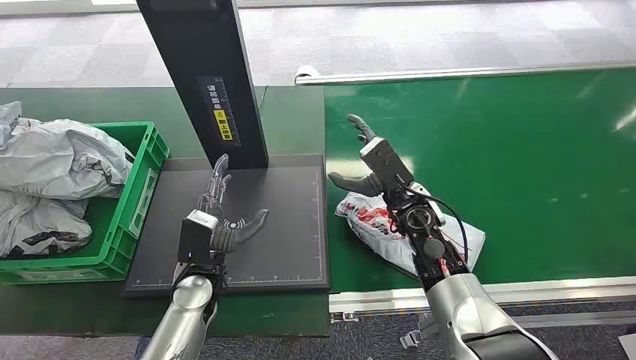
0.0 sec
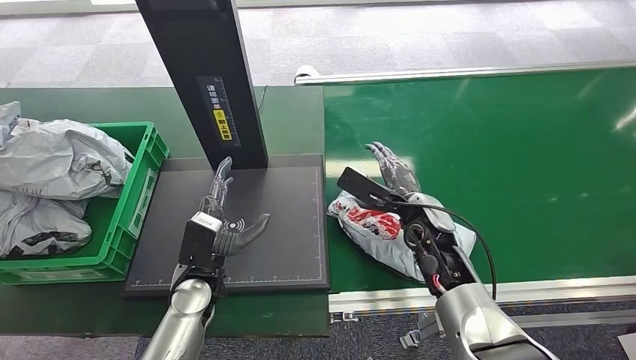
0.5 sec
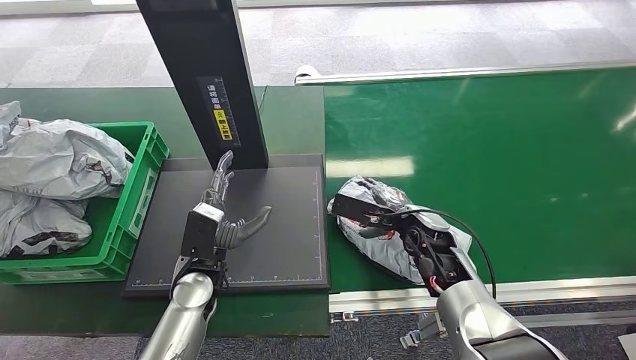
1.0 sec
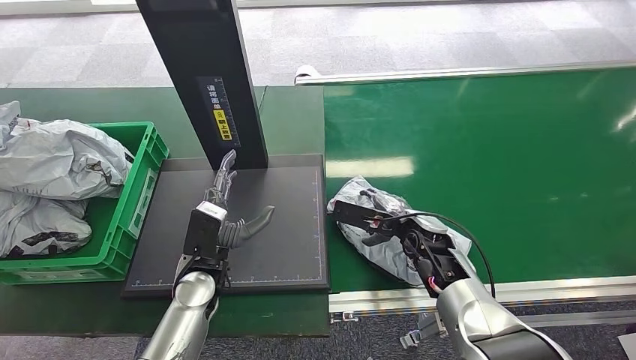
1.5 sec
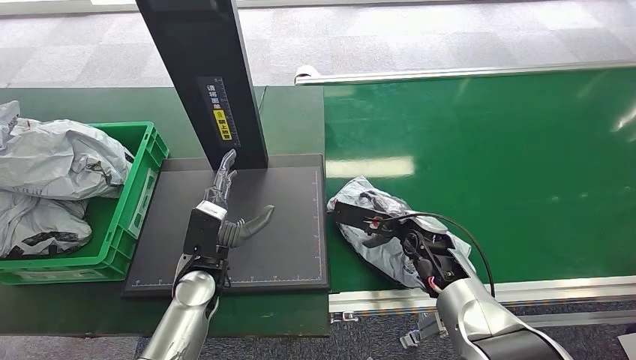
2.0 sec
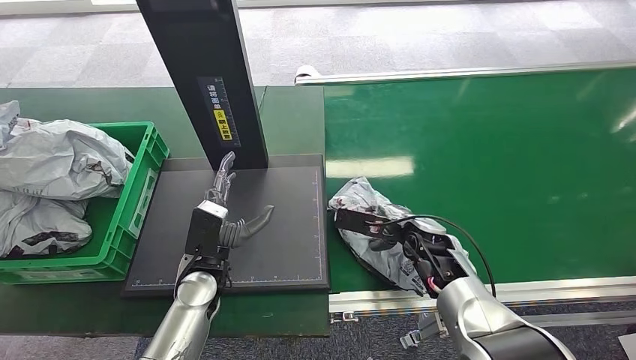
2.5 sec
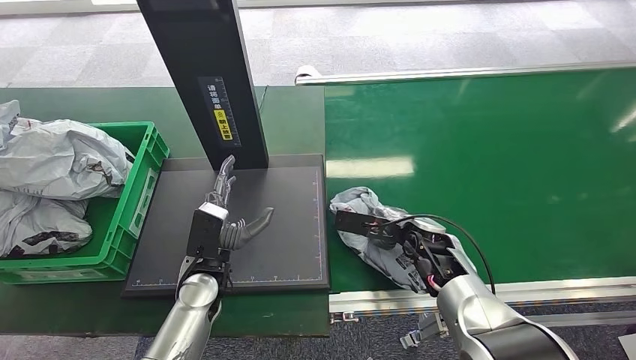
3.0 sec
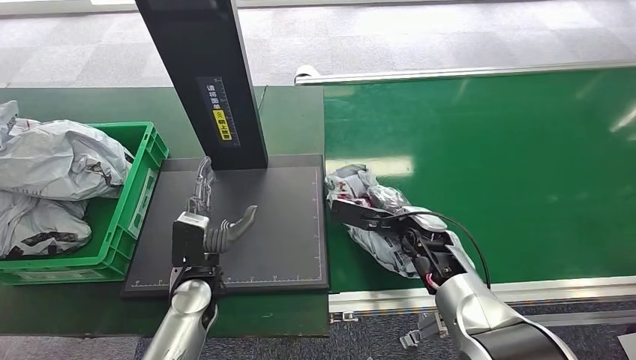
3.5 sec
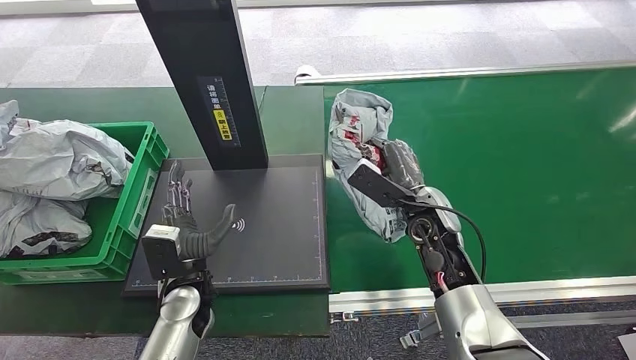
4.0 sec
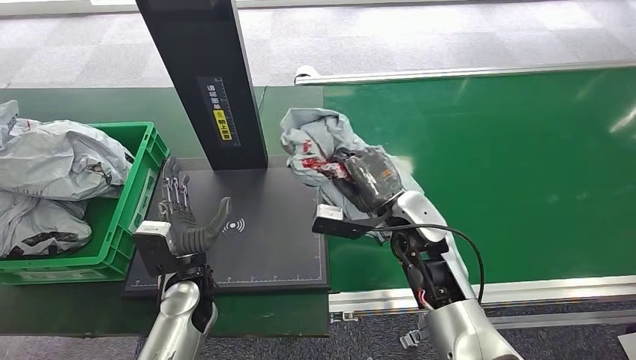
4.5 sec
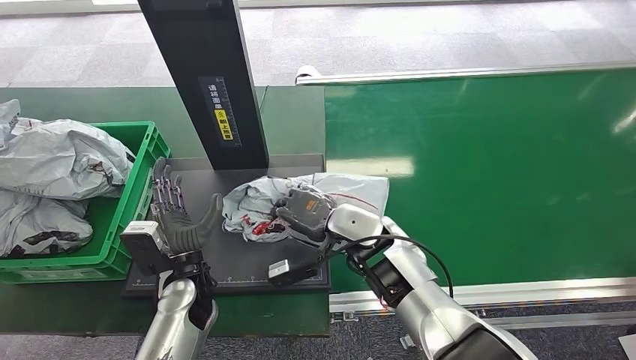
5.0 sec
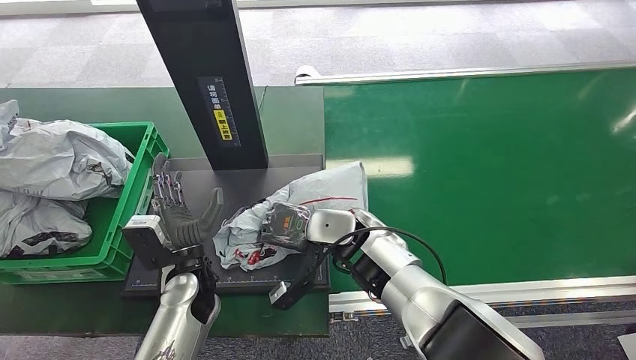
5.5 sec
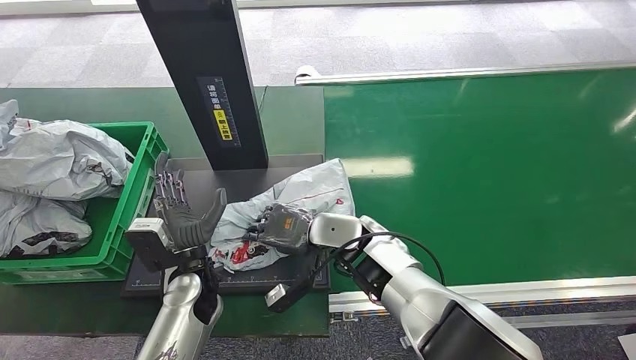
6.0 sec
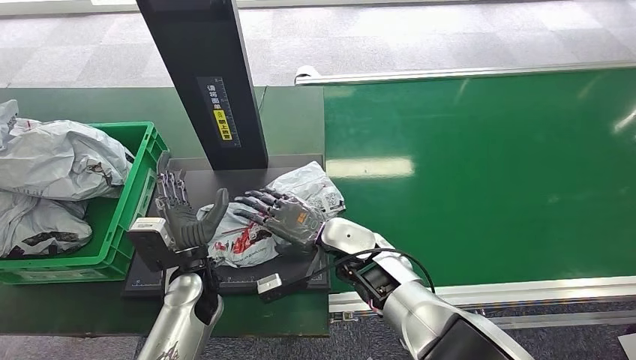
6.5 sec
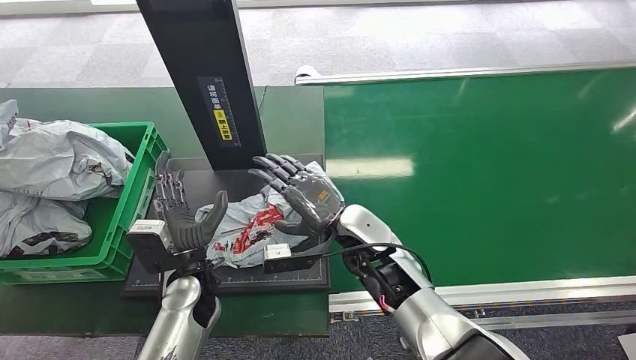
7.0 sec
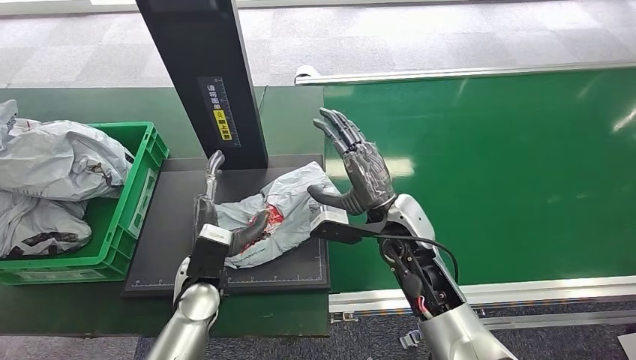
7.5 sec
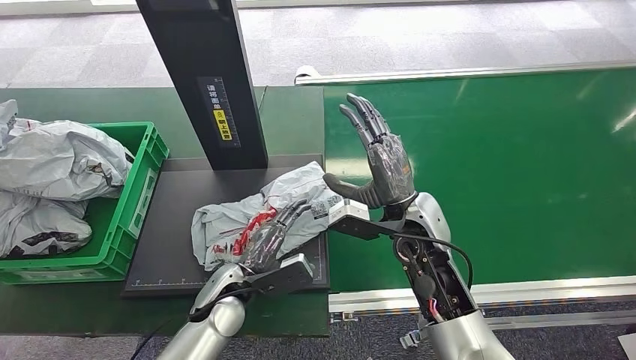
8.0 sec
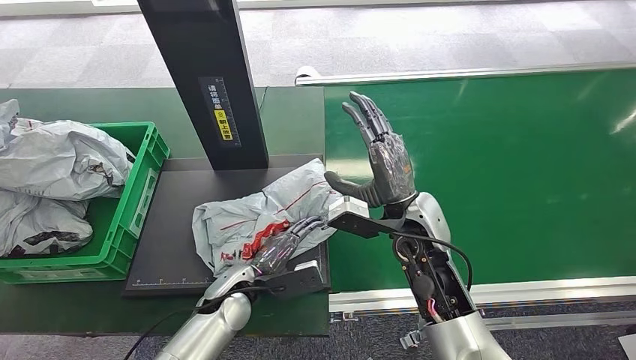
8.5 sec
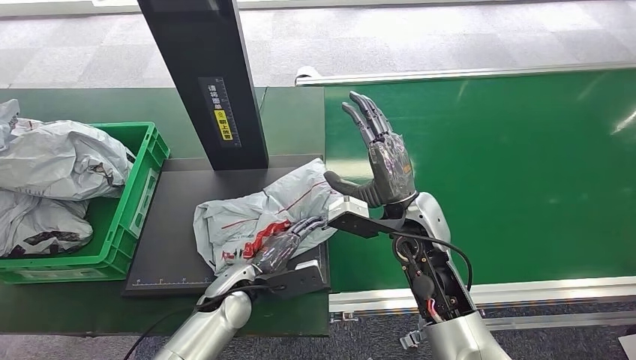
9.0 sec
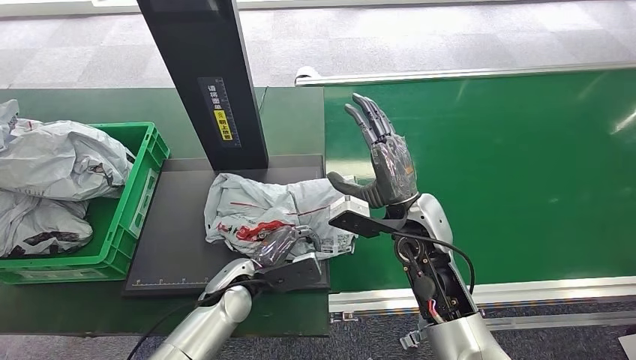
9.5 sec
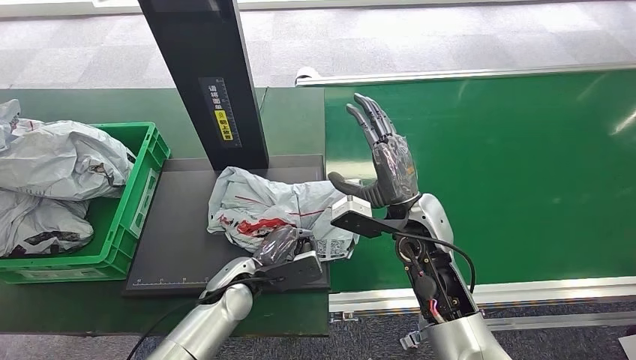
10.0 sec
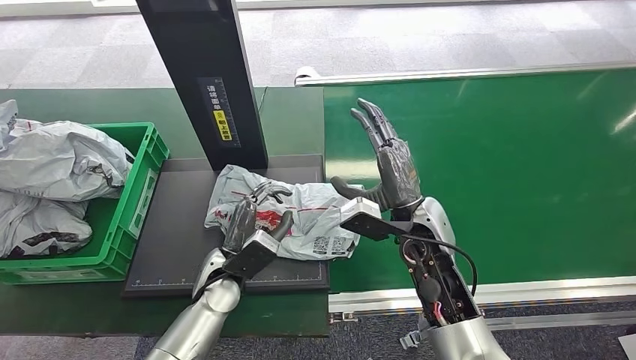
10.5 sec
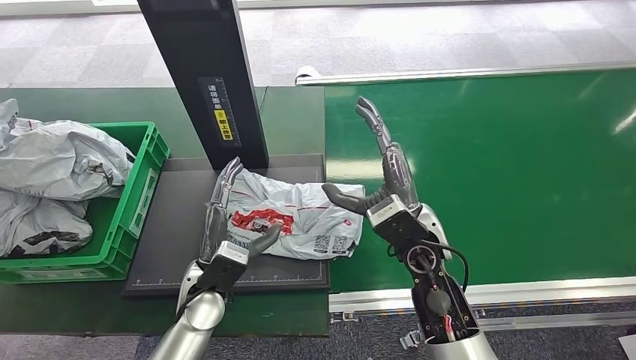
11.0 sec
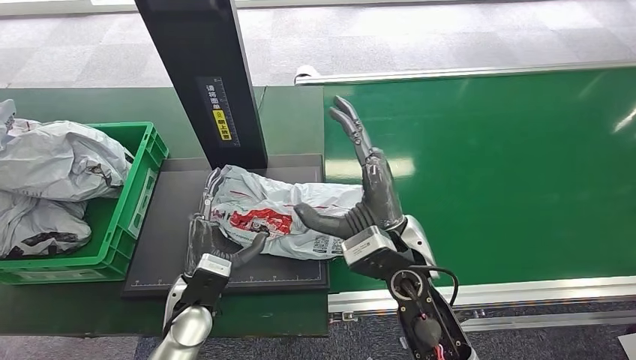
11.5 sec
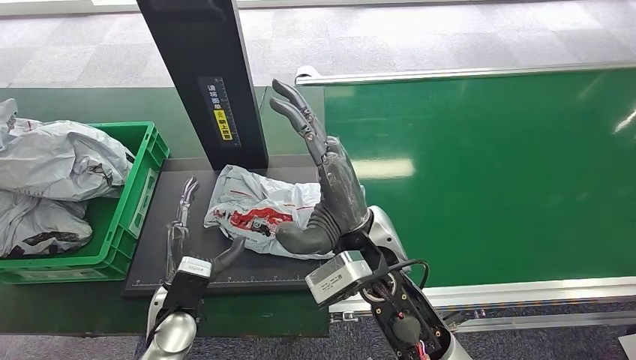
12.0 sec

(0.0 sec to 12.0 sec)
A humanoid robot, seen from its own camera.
Step, 0.0 sec - 4.0 sec: Pick up the package from the conveyor belt.
Step, 4.5 sec - 8.0 sec: Place the package onto the inbound machine.
2.0 sec - 4.0 sec: The right hand travels upward by approximately 5 cm.
4.0 sec - 6.0 sec: The right hand is displaced to the left by approximately 15 cm.
6.0 sec - 8.0 sec: The right hand travels to the right by some 10 cm; the left hand moves about 5 cm.
8.0 sec - 10.0 sec: The hands move only a little.
10.0 sec - 12.0 sec: The right hand is displaced to the left, backward and upward by about 15 cm; the left hand shifts roughly 10 cm to the left and backward.

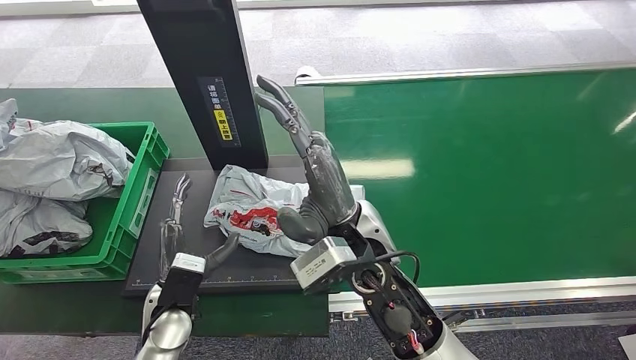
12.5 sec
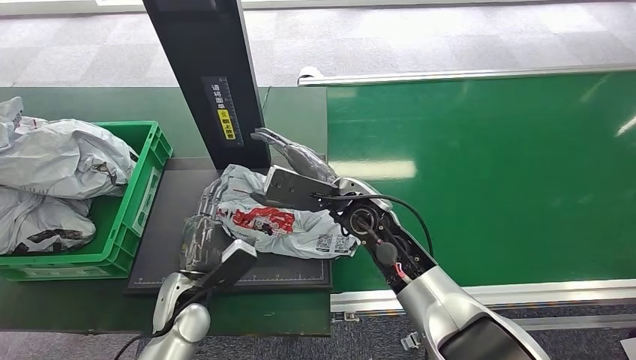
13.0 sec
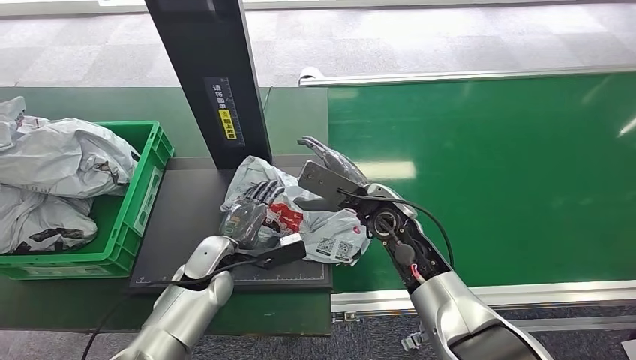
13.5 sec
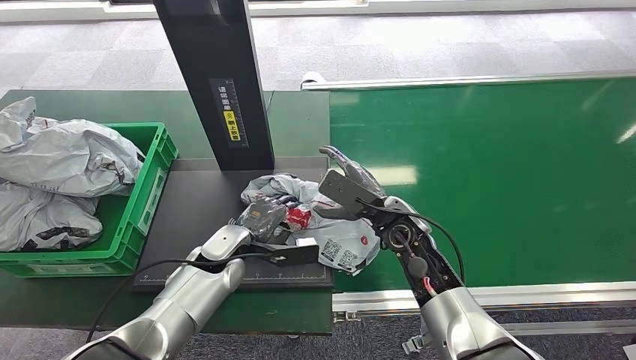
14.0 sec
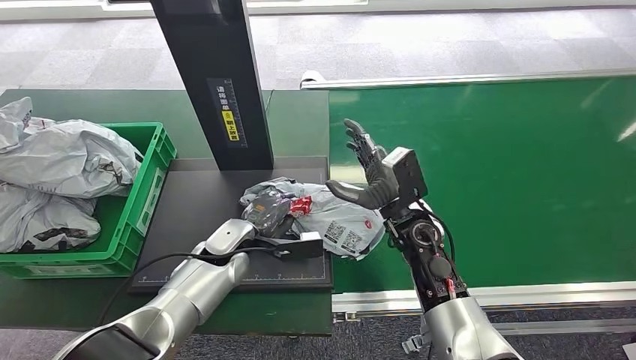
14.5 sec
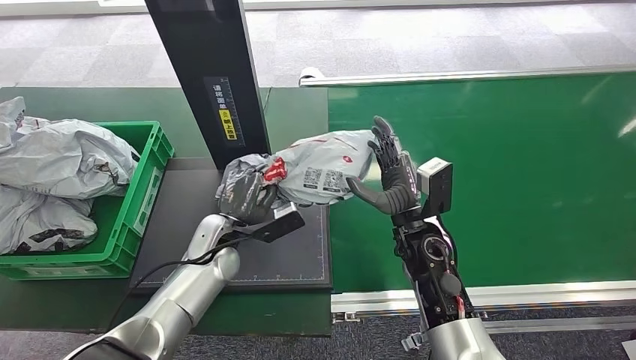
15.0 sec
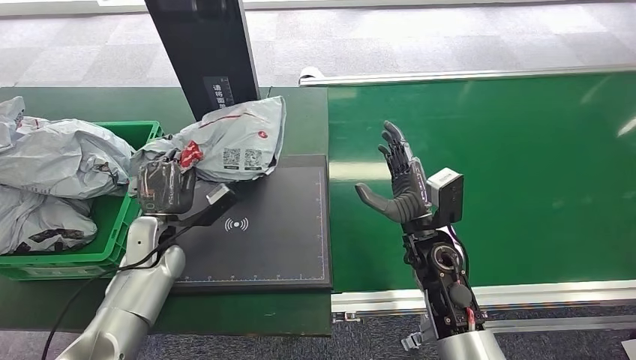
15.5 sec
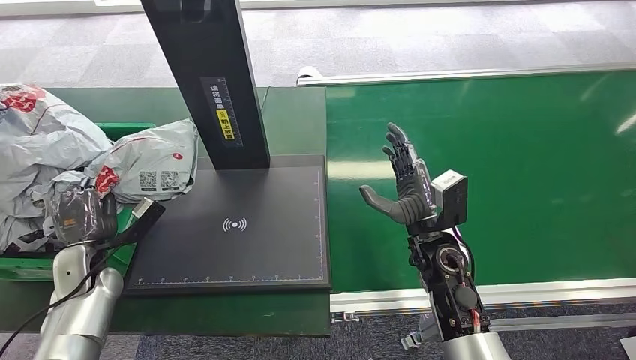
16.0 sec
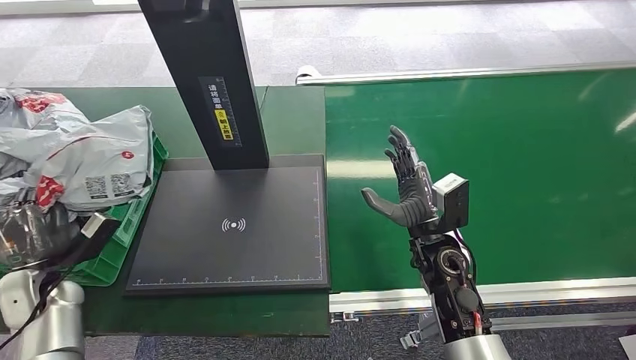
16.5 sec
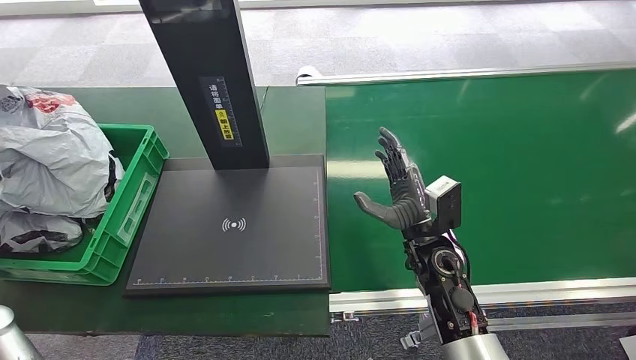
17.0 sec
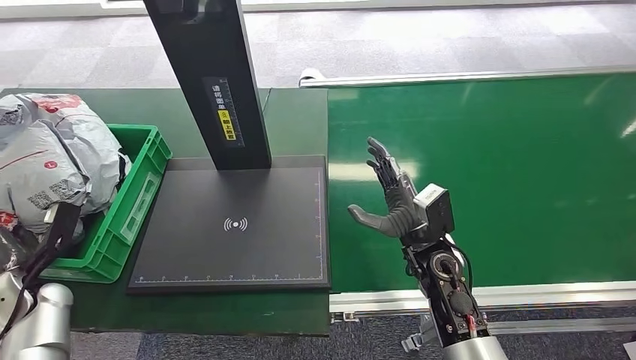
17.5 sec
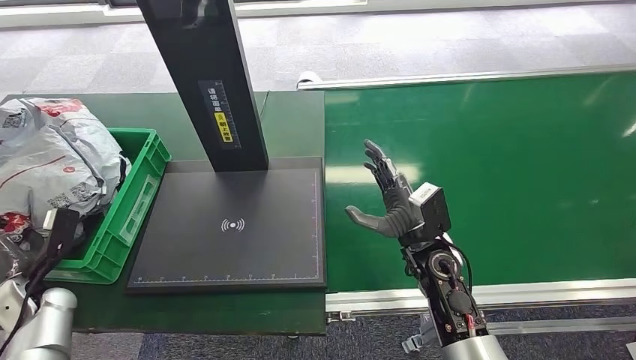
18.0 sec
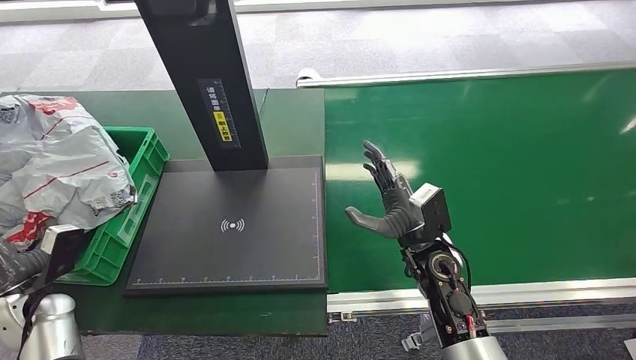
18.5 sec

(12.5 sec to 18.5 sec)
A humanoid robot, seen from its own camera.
Step, 12.5 sec - 15.5 sec: Pick up the package from the inbound machine.
Step, 16.0 sec - 18.5 sec: Place the package into the parcel locker.
16.5 sec - 18.5 sec: The left hand moves about 5 cm upward and comes back.
